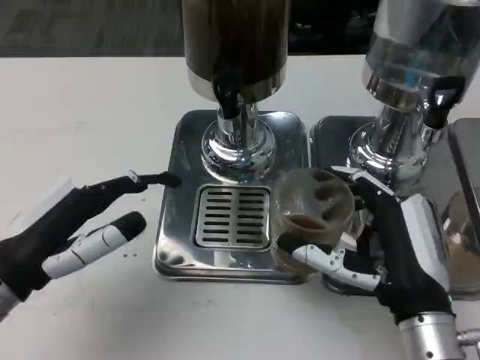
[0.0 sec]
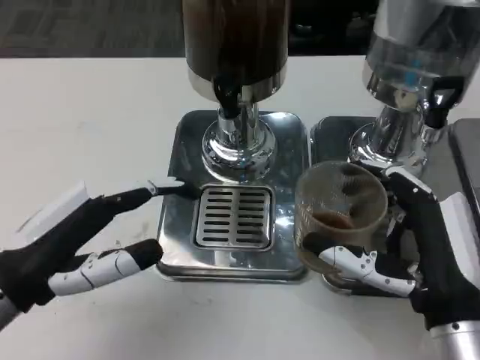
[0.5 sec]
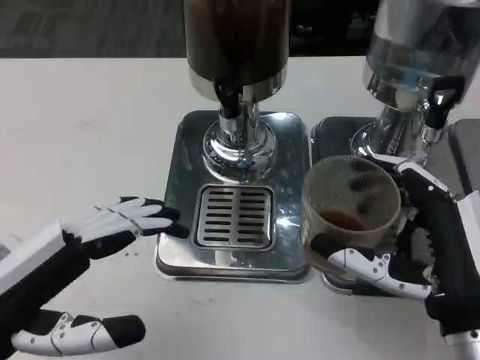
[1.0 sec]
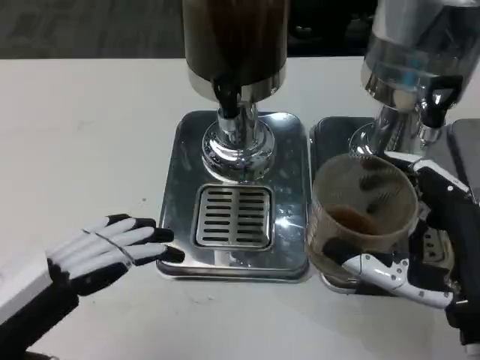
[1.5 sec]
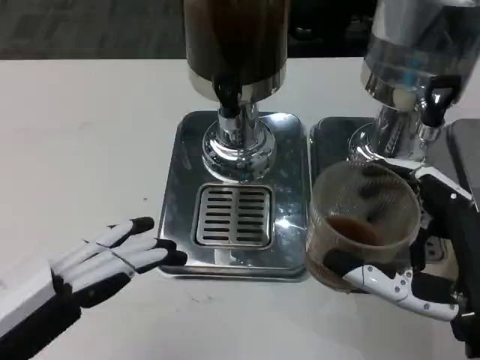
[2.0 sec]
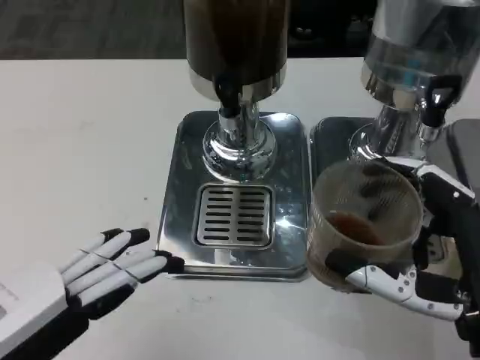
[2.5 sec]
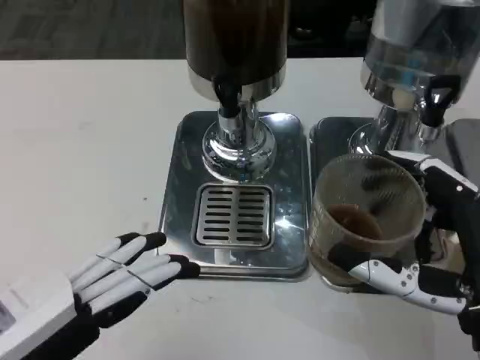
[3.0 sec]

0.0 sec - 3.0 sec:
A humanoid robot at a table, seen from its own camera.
Task of the whole recording: Grasp the cup under the faucet to collect the drink, then remove the cup.
0.0 sec - 1.5 sec: The left hand is displaced backward by approximately 10 cm. The right hand moves roughly 5 cm.
1.5 sec - 3.0 sec: The hands move only a little.

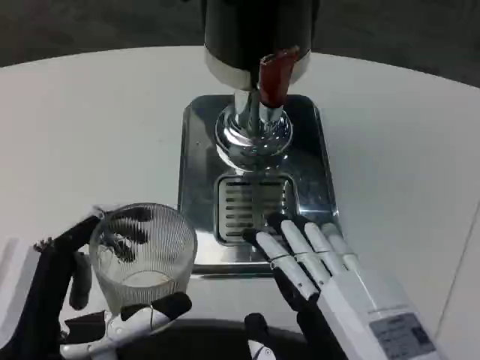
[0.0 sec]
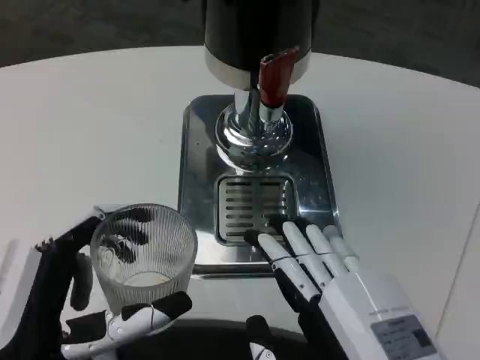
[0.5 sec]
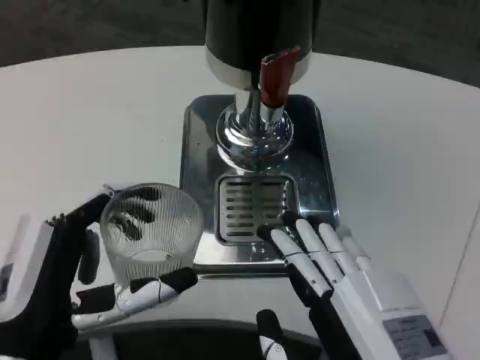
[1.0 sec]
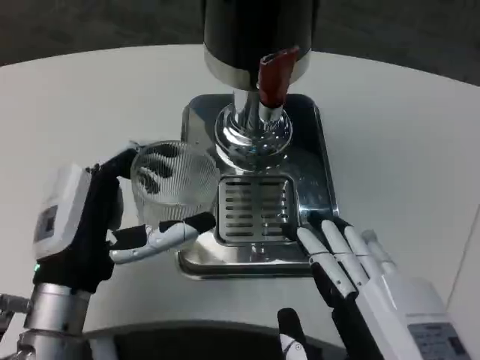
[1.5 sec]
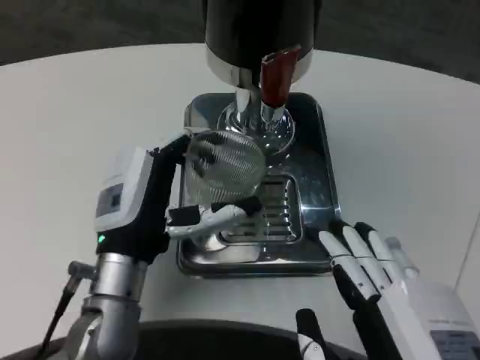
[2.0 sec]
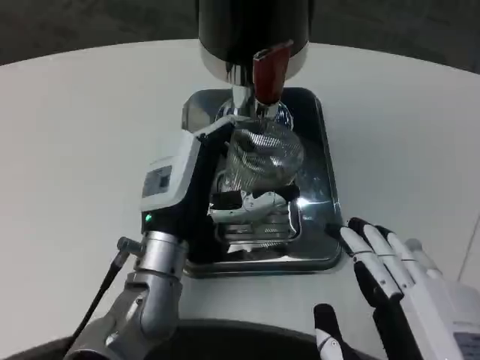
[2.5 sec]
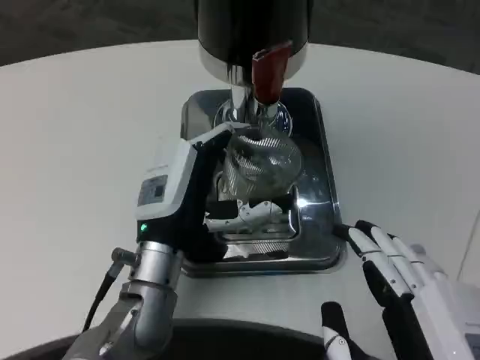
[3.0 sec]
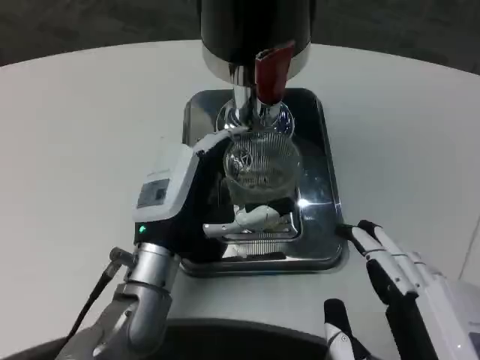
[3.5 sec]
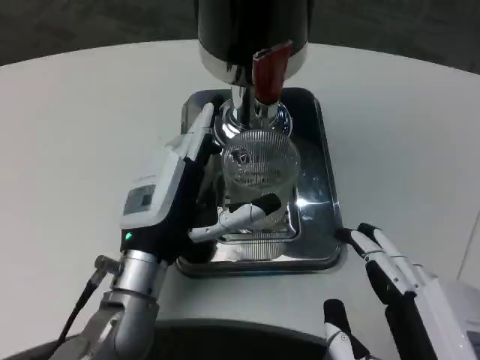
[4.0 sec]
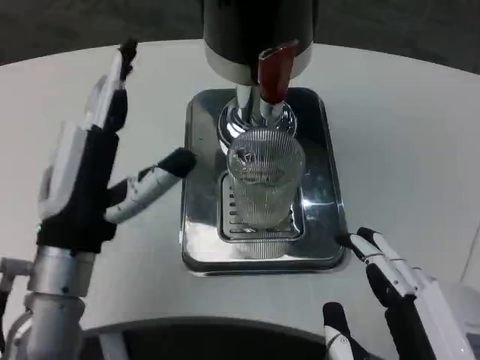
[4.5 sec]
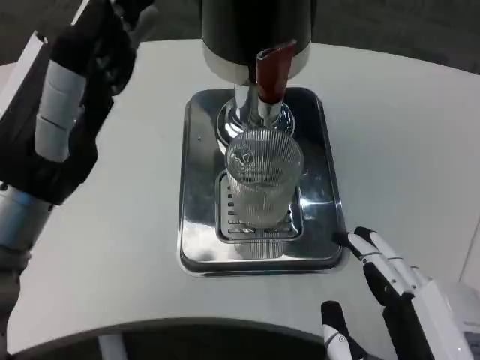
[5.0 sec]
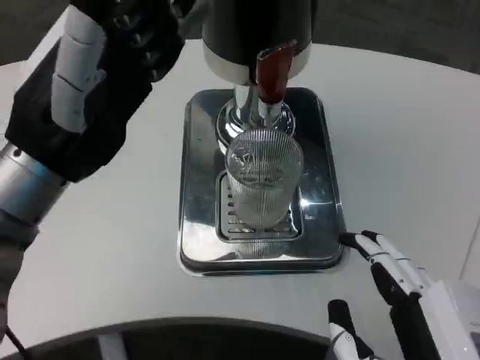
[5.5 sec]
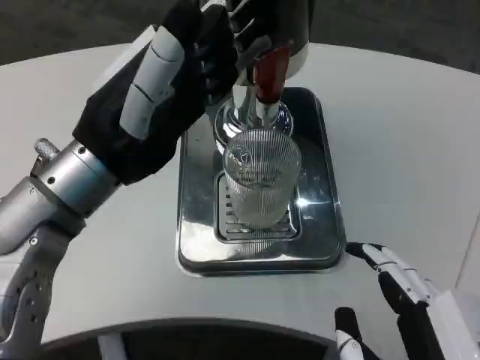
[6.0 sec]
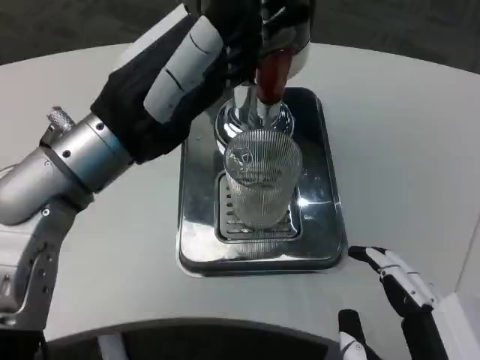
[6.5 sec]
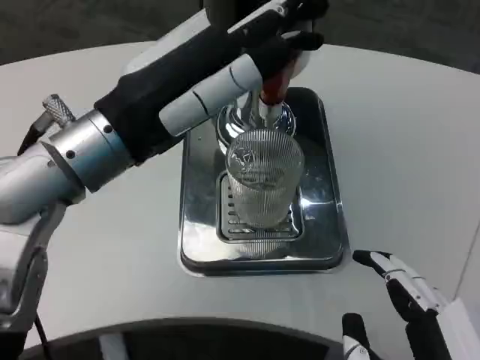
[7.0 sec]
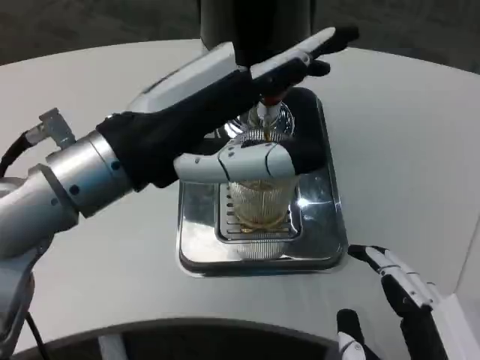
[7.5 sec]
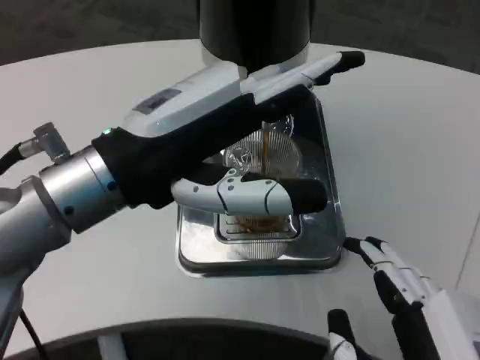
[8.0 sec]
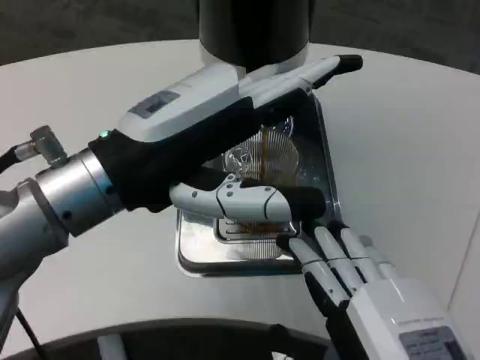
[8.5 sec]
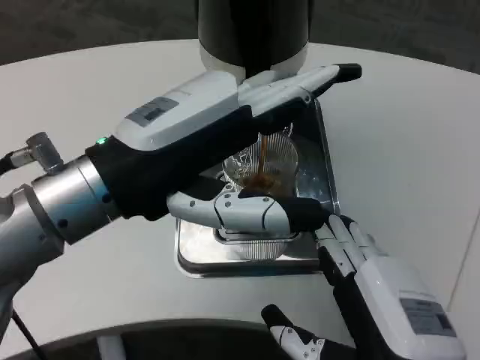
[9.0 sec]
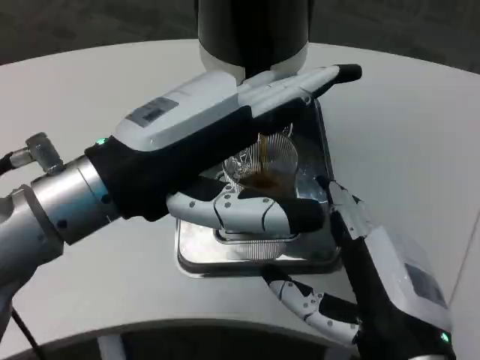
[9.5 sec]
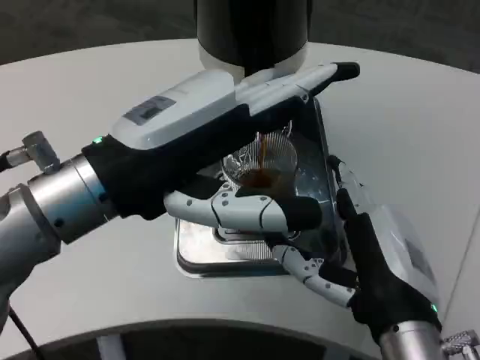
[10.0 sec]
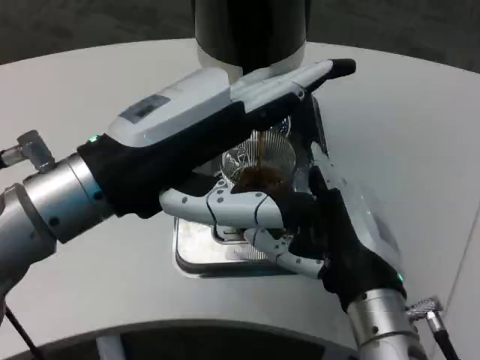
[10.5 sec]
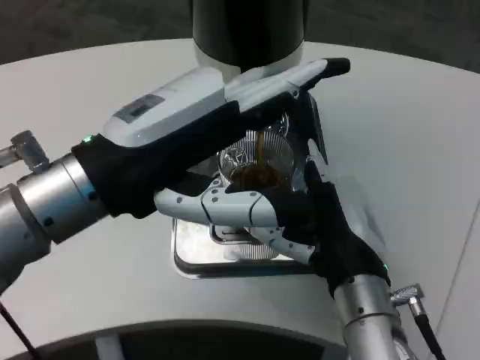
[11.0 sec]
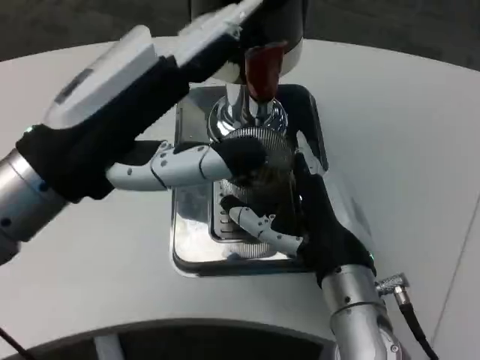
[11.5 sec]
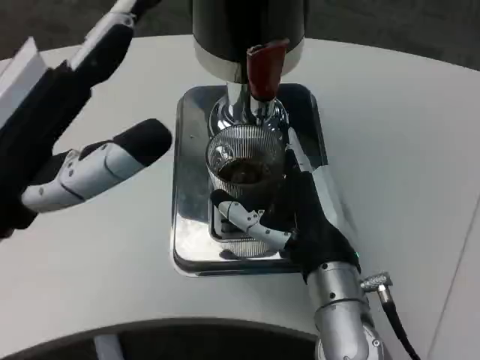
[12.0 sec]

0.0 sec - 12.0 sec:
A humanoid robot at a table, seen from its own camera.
Task of the whole recording: Grasp the cup under the faucet to collect the drink, then remove the cup.
0.0 sec - 2.0 sec: The left hand heads forward and to the right, covering about 15 cm.
4.0 sec - 6.0 sec: The left hand goes about 15 cm upward.
8.0 sec - 10.0 sec: The right hand is displaced forward by approximately 10 cm.
10.0 sec - 12.0 sec: The left hand moves to the left, about 5 cm, while the right hand travels forward by roughly 5 cm.

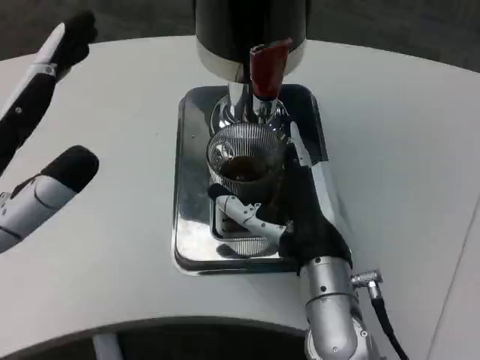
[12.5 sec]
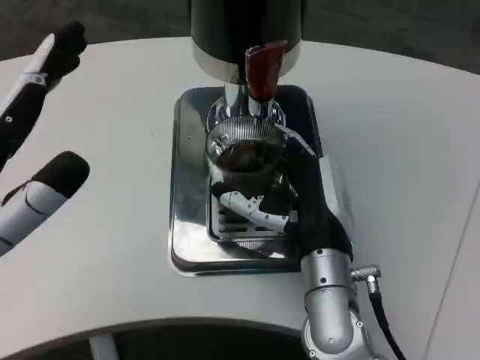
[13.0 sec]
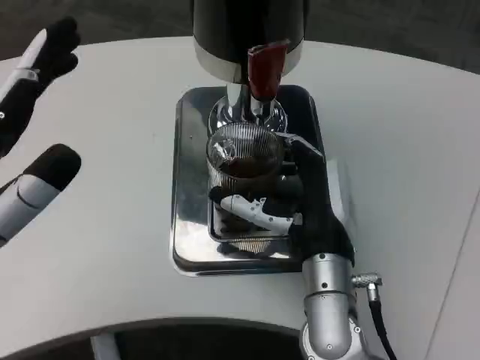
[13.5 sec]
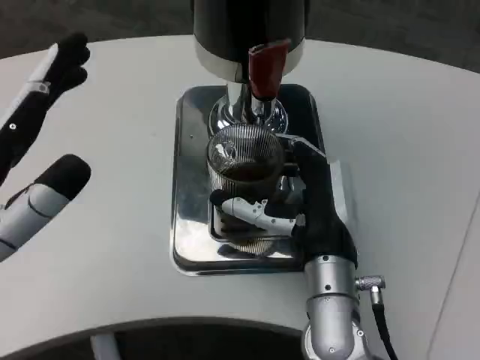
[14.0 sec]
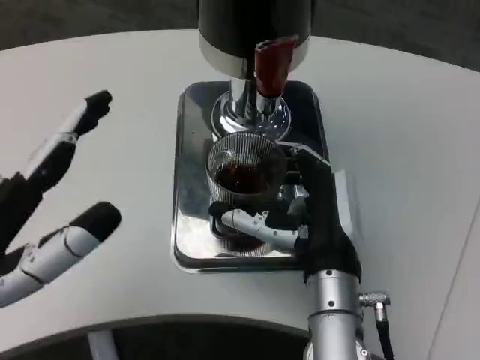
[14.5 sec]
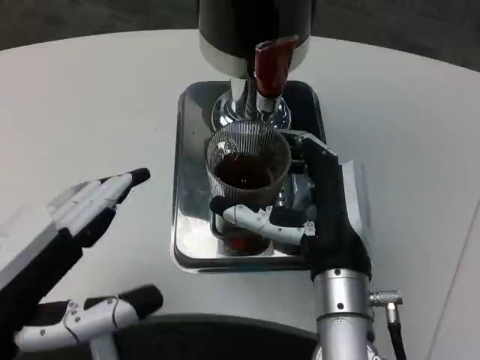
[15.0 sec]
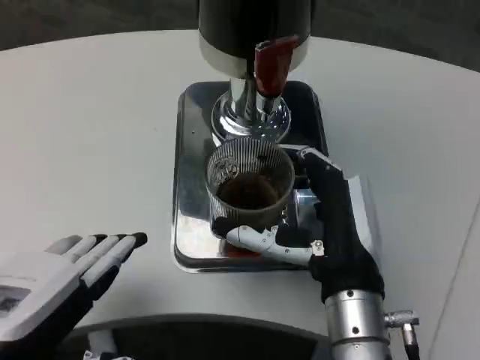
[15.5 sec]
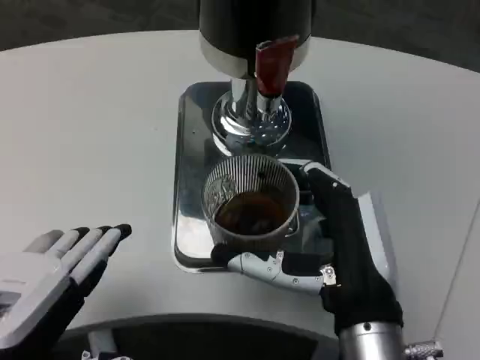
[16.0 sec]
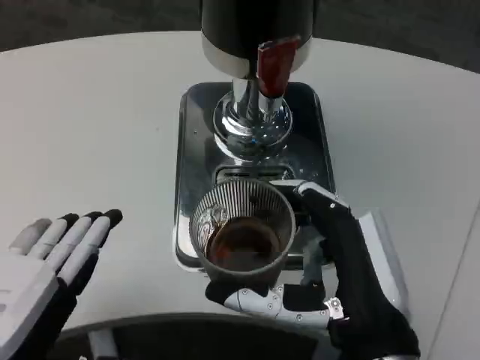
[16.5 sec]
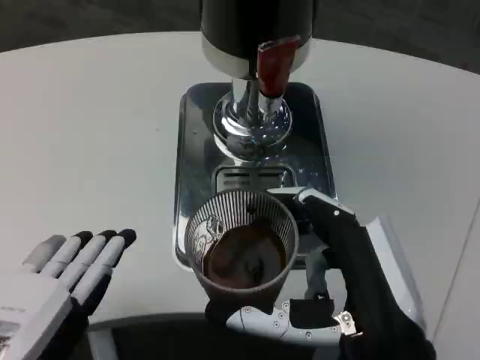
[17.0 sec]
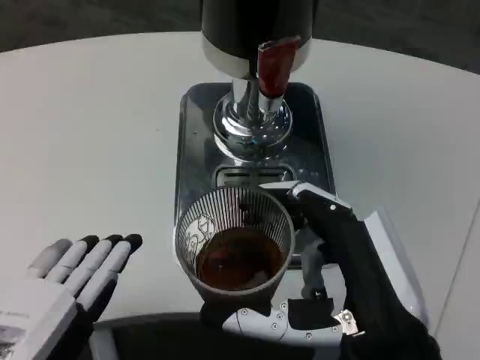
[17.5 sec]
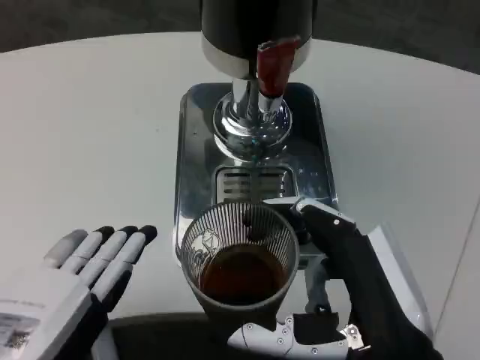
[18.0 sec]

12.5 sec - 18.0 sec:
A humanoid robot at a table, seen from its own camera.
Task of the whole recording: Grasp the cup under the faucet to collect the drink, then remove the cup.
14.5 sec - 16.0 sec: The right hand moves backward, roughly 5 cm.
16.0 sec - 18.0 sec: The right hand shifts some 5 cm backward.

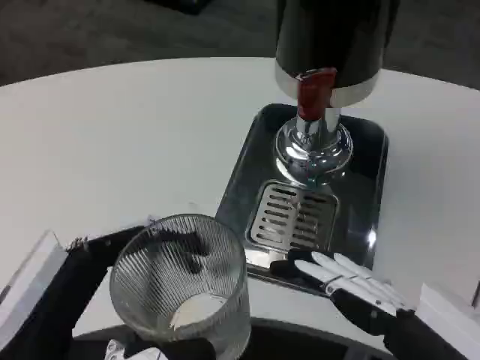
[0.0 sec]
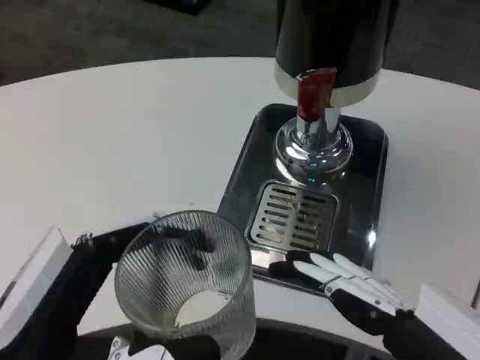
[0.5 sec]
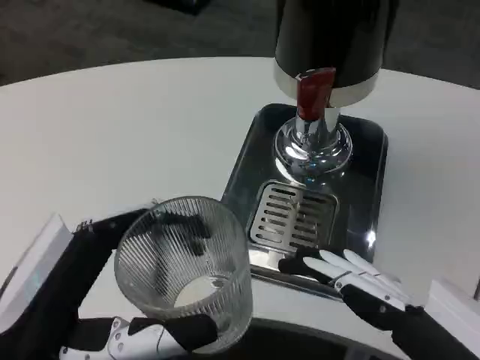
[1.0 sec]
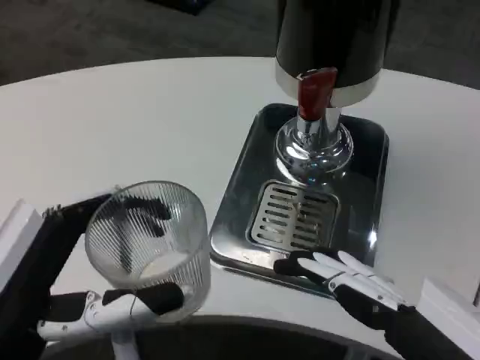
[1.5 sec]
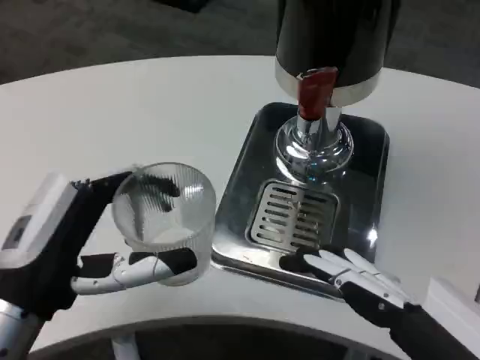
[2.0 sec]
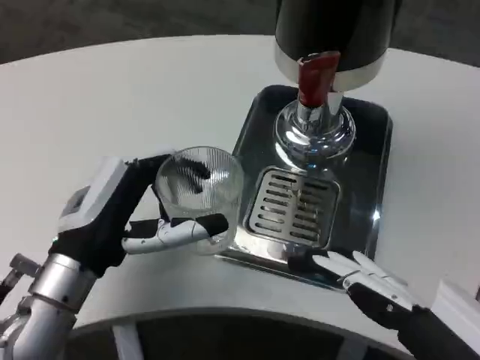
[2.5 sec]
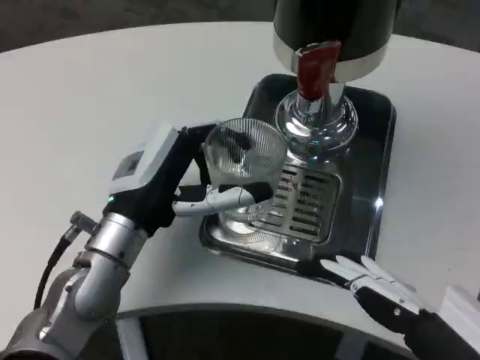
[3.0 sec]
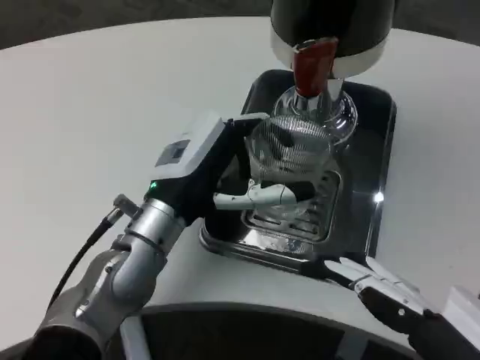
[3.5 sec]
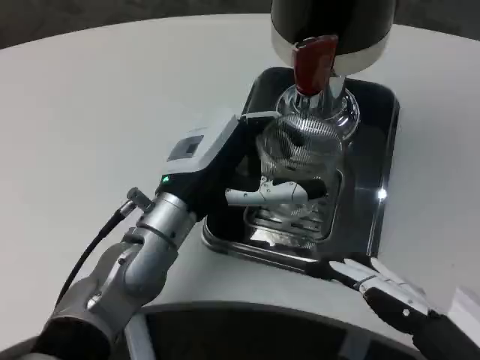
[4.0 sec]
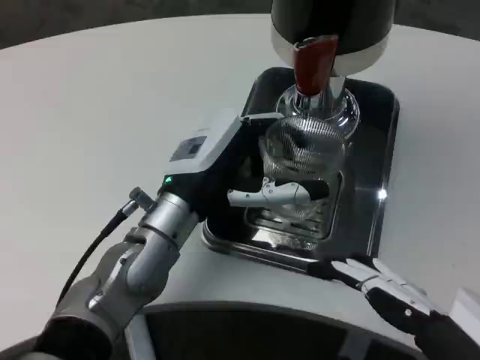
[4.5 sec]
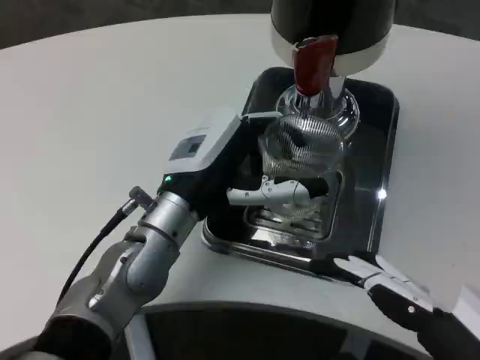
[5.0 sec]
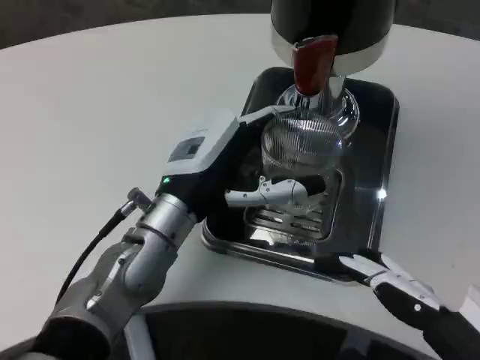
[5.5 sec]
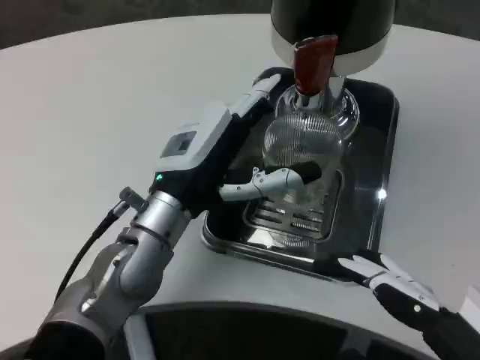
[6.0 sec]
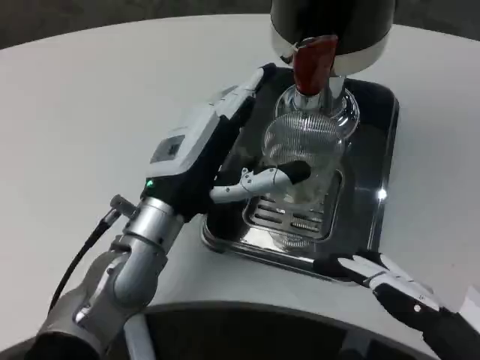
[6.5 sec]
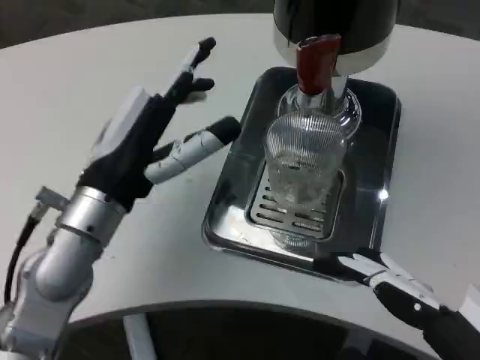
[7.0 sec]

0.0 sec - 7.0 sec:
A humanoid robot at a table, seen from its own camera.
Task of the whole recording: Grasp the cup under the faucet to collect the drink, then remove the cup.
0.0 sec - 2.0 sec: The left hand moves forward, approximately 10 cm.
2.0 sec - 3.5 sec: The left hand heads forward and to the right, covering some 15 cm.
3.5 sec - 5.0 sec: Both hands stay about where they are.
5.0 sec - 7.0 sec: The left hand shifts some 5 cm to the left.
